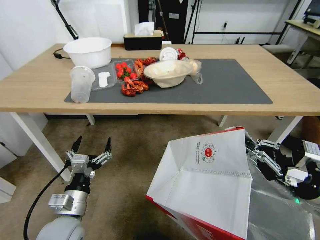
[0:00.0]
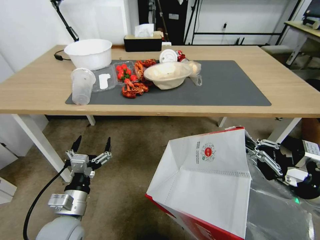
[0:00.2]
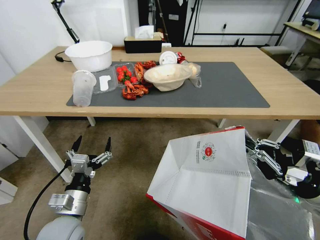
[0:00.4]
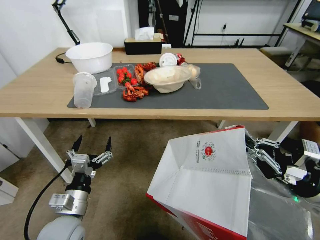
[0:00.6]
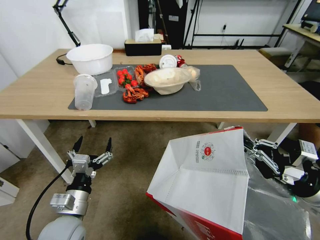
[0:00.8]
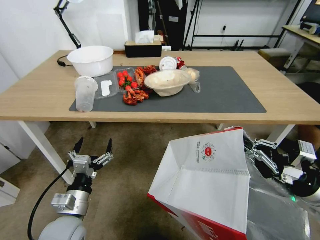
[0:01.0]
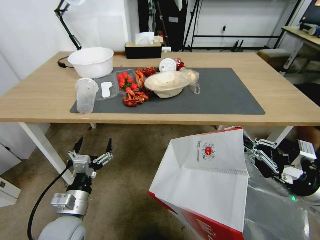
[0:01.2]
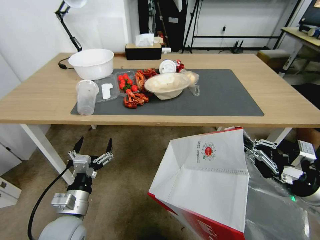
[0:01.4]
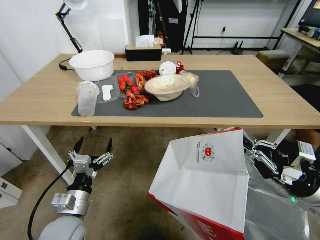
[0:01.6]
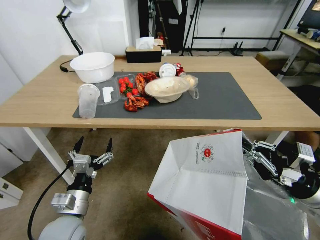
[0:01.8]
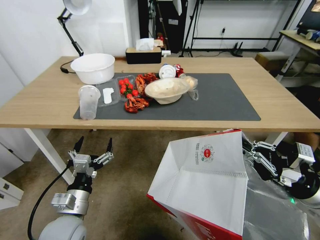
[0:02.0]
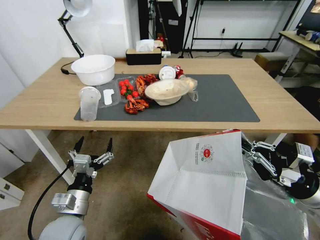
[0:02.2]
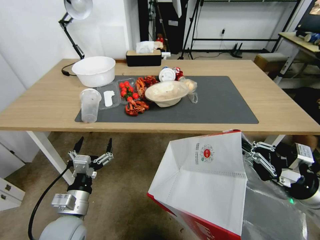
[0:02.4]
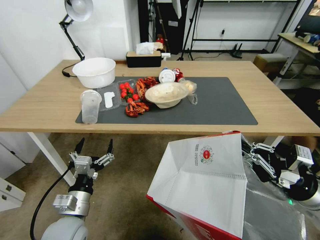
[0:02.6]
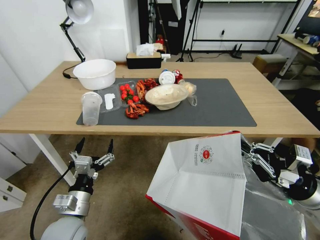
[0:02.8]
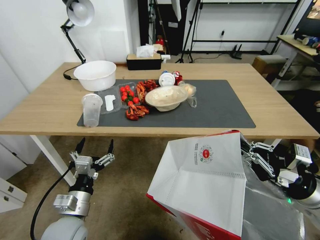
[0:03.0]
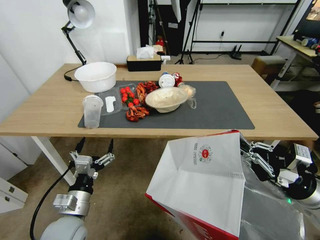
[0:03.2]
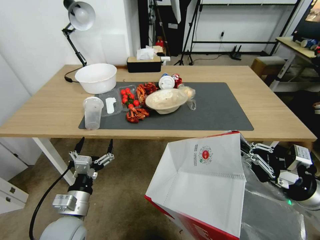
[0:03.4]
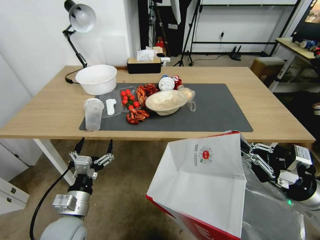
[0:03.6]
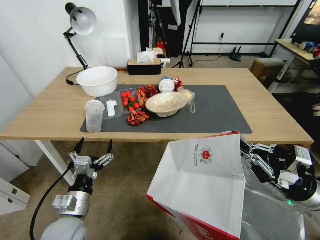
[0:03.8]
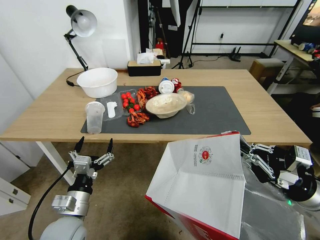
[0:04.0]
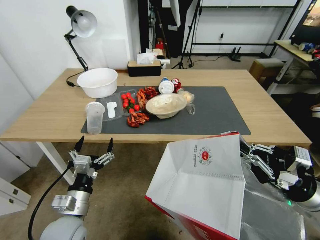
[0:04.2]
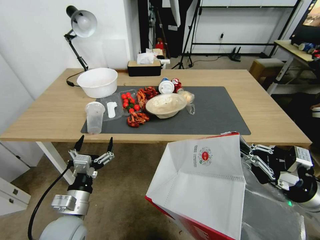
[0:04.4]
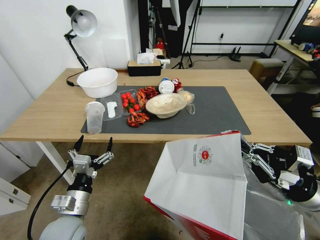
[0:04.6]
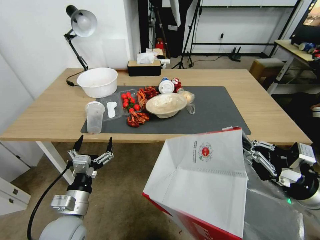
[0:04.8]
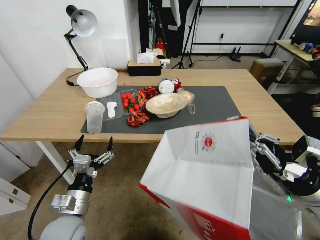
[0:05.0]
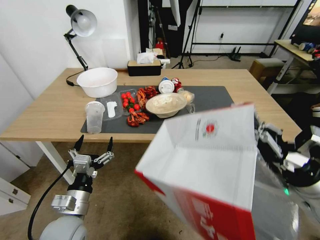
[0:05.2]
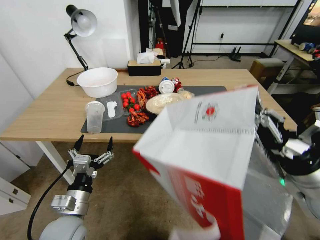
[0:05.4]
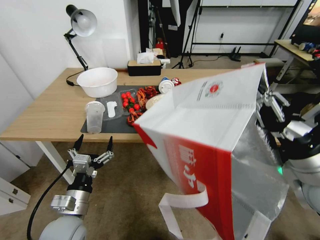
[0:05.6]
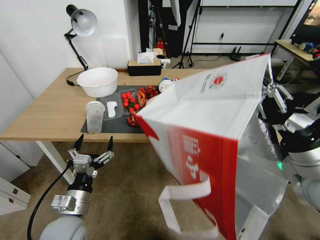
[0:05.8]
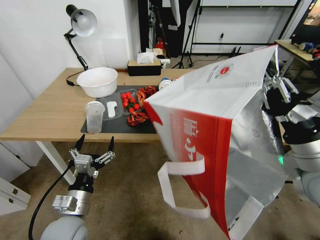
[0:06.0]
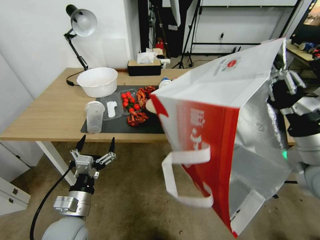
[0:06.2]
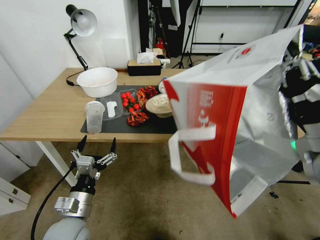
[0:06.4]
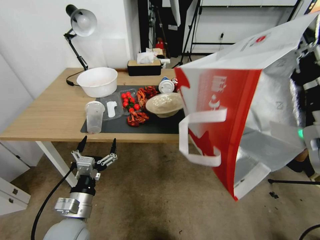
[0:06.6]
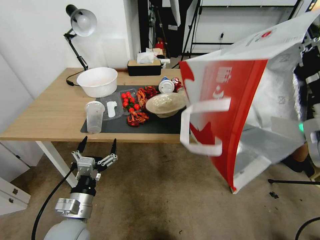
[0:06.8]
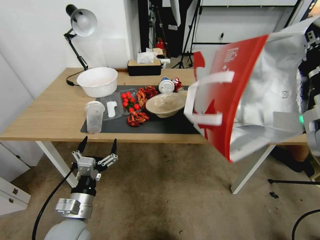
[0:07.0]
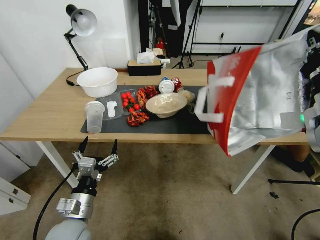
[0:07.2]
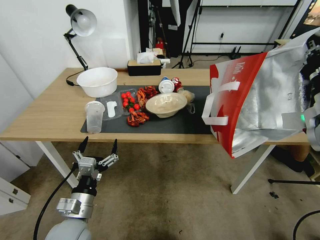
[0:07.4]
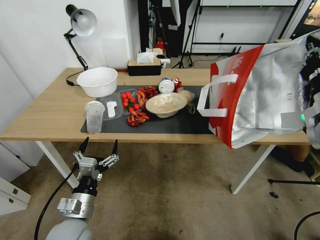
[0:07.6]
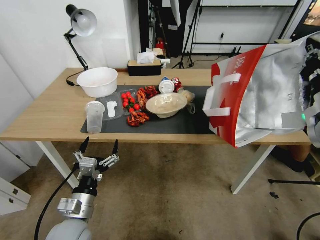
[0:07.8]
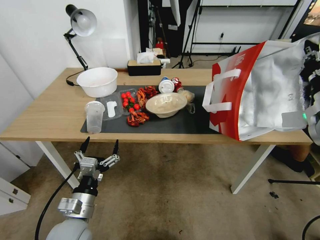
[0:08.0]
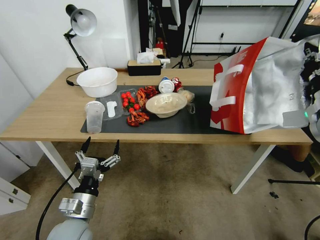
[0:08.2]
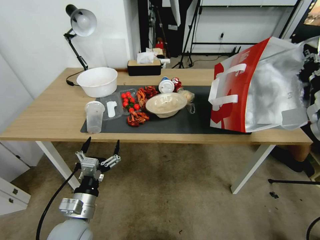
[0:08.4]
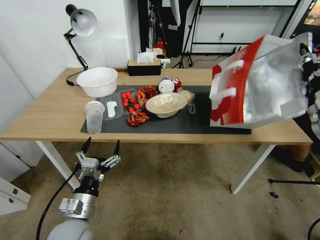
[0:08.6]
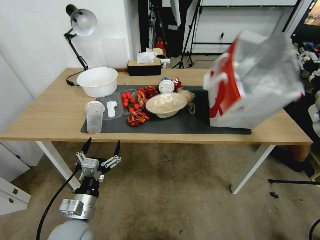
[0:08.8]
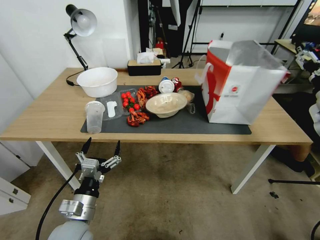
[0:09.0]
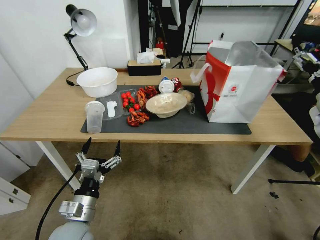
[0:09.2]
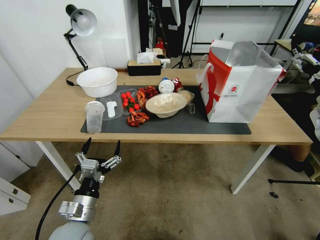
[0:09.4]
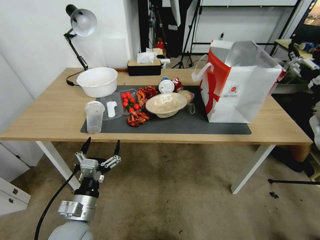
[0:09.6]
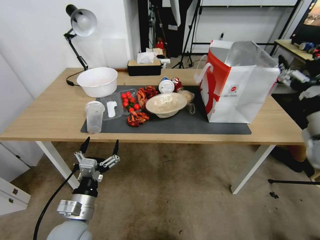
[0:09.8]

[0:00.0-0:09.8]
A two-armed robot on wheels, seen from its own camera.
Task of the whole recording: Pick up the food delivery bag from the floor and place it on the table.
0:04.2 to 0:05.6: The right gripper is displaced upward and to the left by approximately 10 cm.
0:05.6 to 0:07.0: The right gripper goes some 10 cm forward and upward.
0:07.0 to 0:08.4: The right gripper heads to the right and forward, covering approximately 10 cm.
0:08.4 to 0:09.8: The right gripper heads backward, covering about 5 cm, and opens.

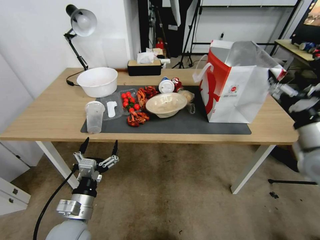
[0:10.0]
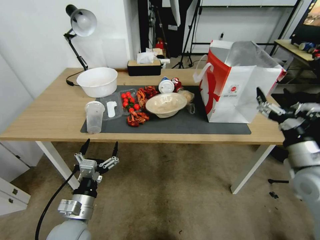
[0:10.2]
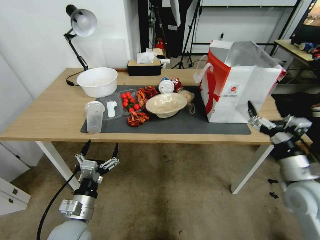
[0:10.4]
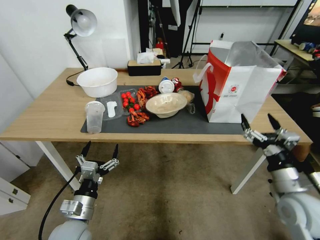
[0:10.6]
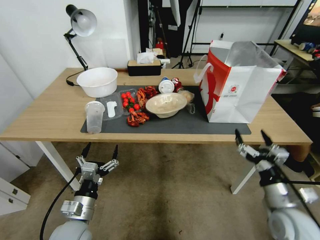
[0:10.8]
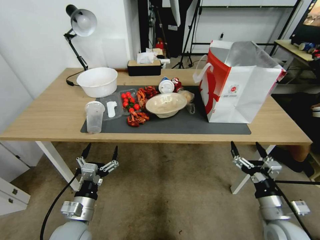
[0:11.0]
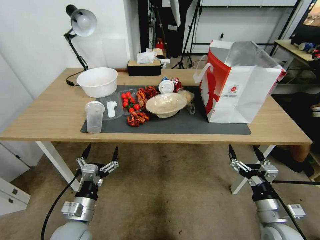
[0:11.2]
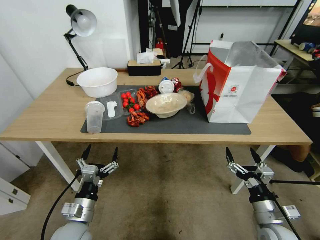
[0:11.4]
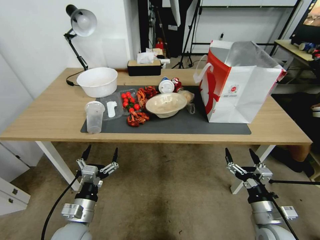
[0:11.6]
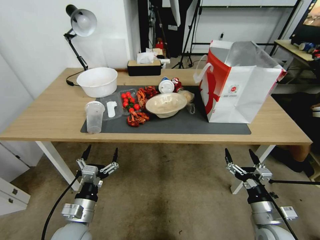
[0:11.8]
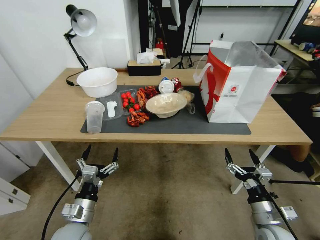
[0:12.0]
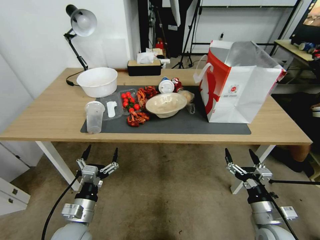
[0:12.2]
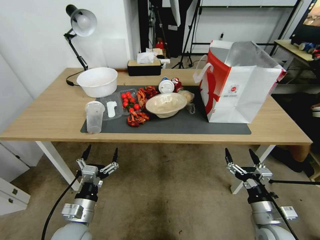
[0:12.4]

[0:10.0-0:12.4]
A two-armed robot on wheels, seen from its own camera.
Task of the whole recording: Pick up the food delivery bag from the floor and place it on the table.
0:10.0 to 0:11.2: The right gripper travels downward and backward by approximately 25 cm.
0:11.2 to 0:12.4: There are only small adjustments of the grippers.

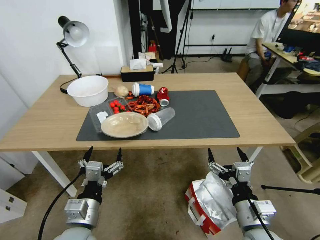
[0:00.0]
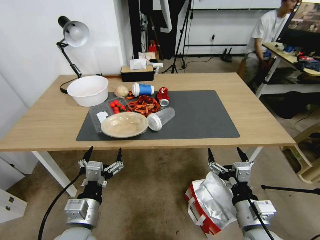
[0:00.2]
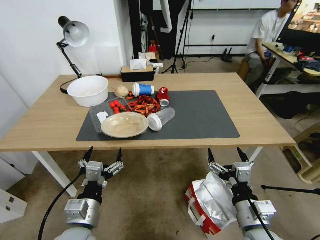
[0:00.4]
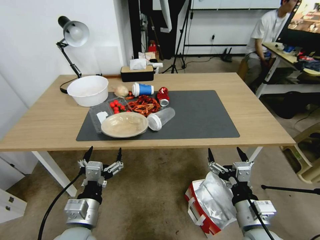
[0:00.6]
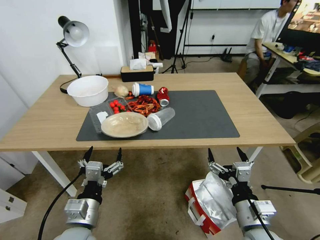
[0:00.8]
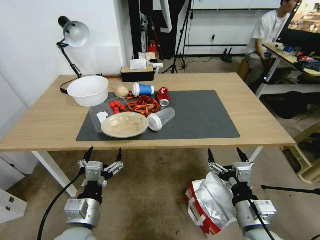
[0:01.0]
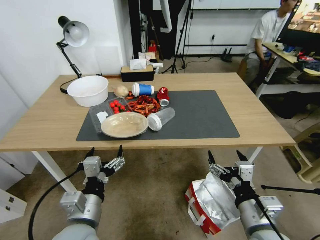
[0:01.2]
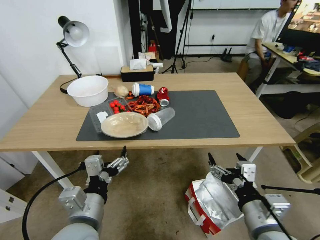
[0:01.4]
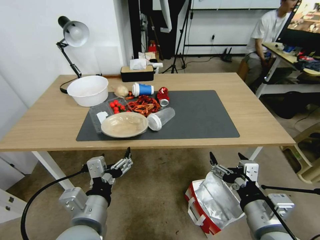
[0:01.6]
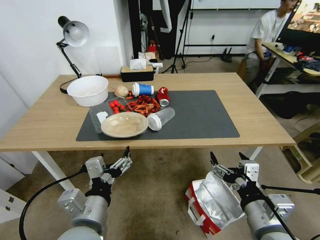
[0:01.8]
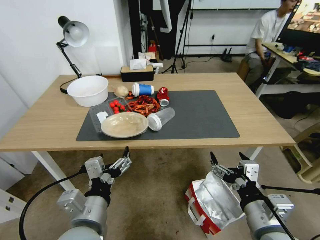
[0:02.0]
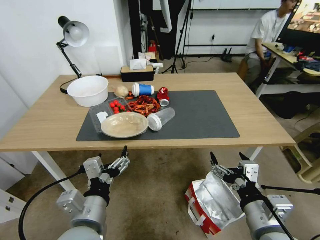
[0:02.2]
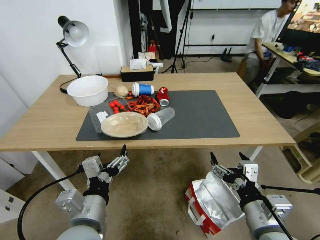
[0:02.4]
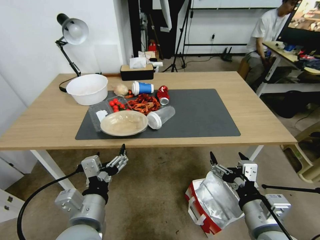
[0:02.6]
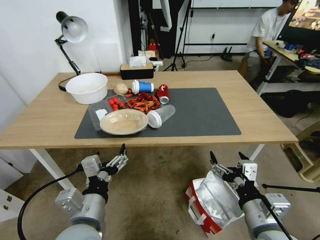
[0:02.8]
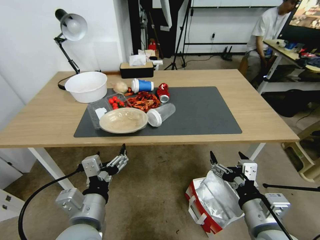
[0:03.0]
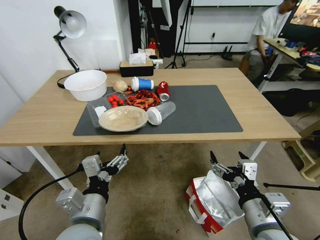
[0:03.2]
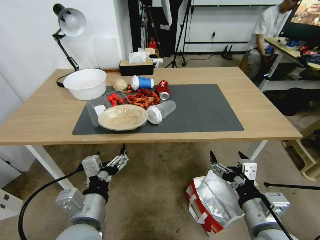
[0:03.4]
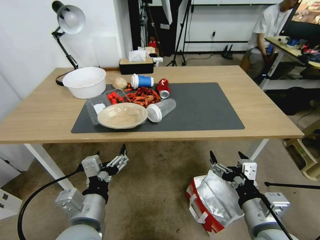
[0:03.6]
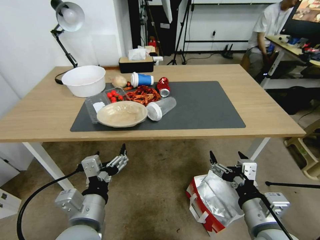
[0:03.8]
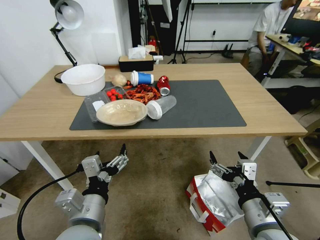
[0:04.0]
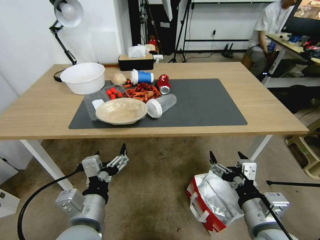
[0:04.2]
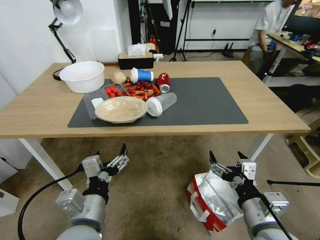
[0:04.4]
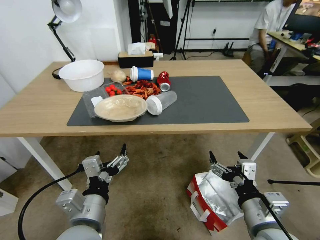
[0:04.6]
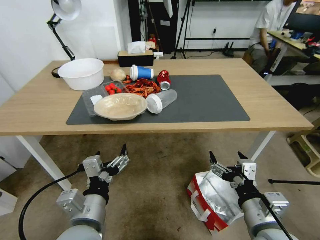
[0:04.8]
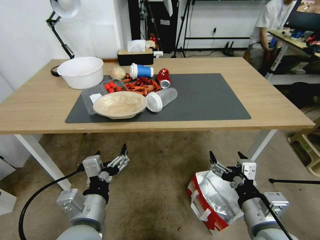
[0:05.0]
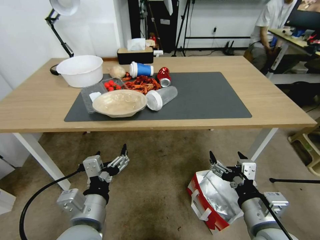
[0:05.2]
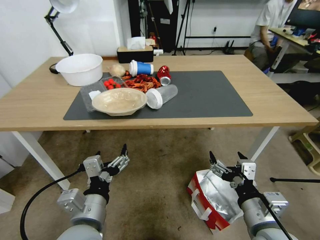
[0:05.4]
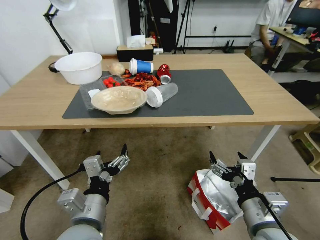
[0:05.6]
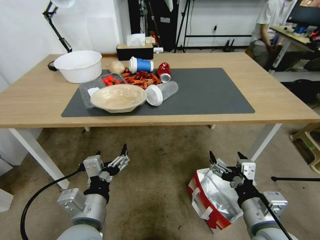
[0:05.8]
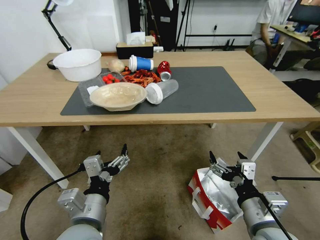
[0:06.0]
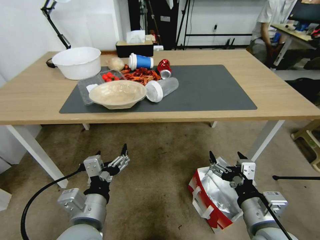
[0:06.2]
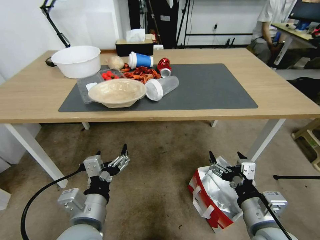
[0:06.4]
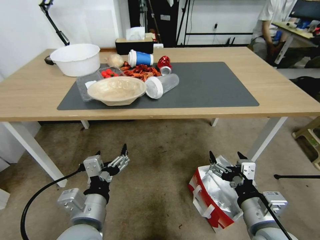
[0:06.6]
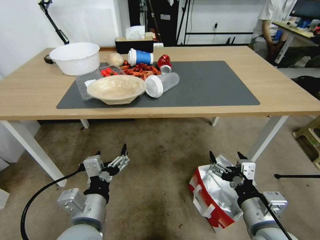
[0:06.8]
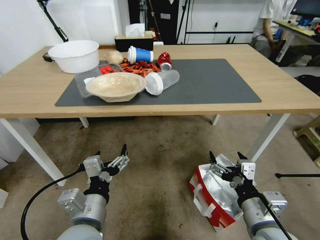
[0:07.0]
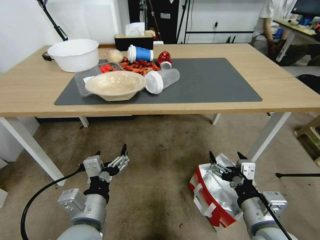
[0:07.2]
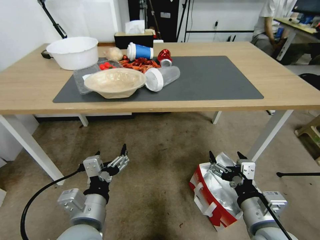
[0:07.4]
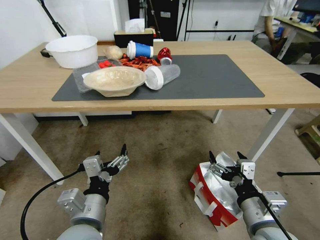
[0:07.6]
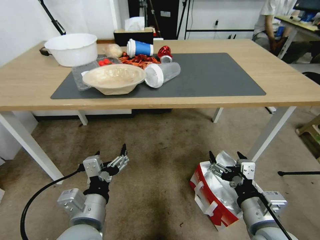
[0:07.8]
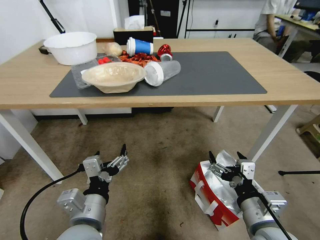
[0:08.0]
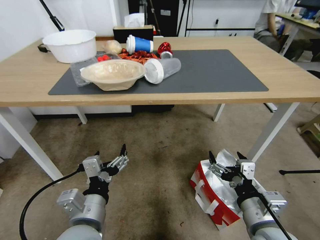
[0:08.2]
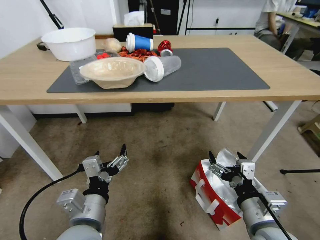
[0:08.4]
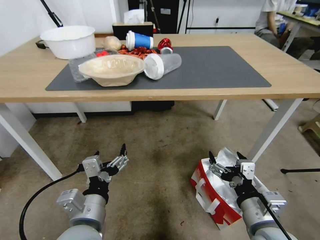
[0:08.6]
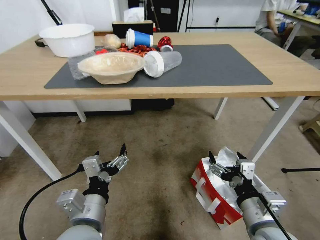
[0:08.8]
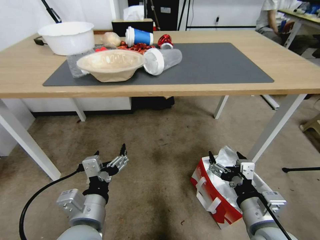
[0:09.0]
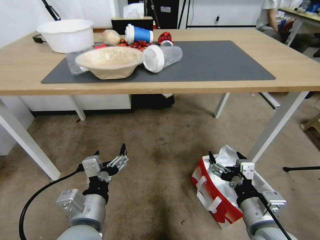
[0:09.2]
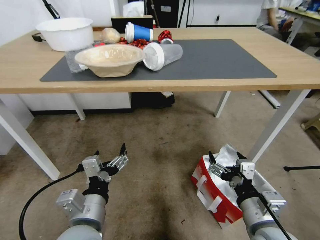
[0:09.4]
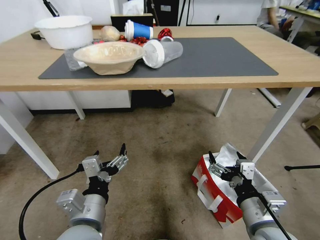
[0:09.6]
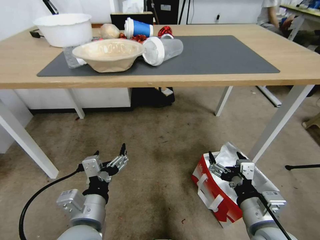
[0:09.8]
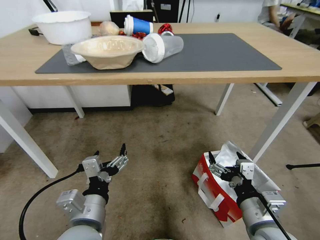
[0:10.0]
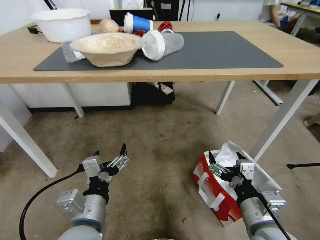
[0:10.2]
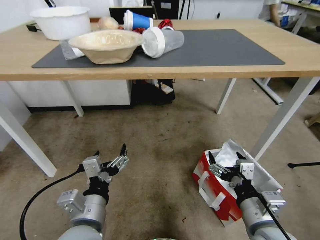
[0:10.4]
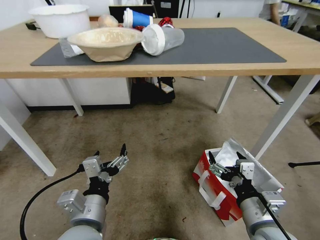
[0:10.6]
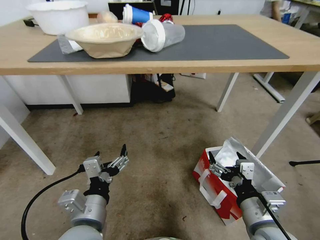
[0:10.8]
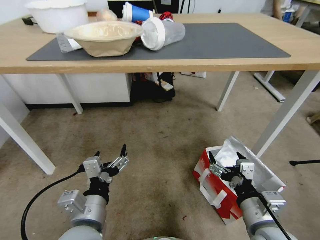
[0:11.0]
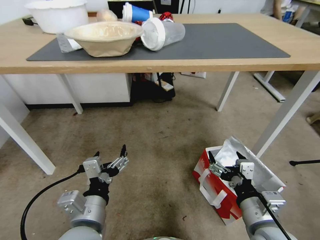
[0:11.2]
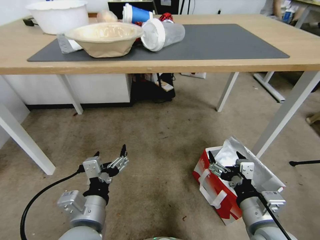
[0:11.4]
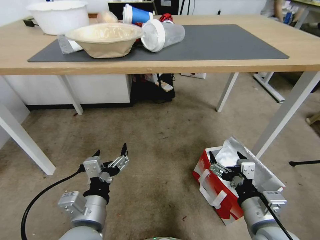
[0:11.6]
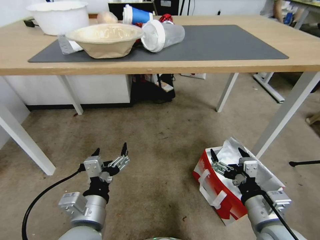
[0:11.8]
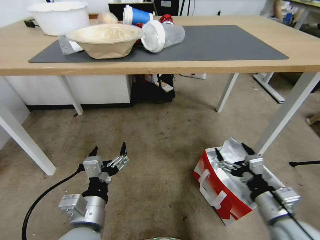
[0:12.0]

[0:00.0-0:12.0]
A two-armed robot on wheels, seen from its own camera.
Task of the whole recording: Pick up the food delivery bag from the floor and place it on the table.
0:10.4 to 0:12.0: The right gripper moves approximately 5 cm.
